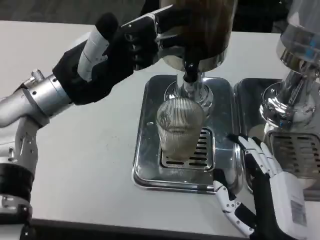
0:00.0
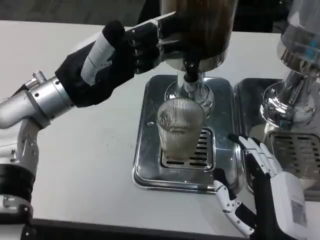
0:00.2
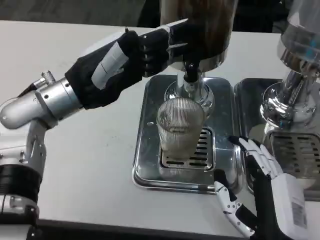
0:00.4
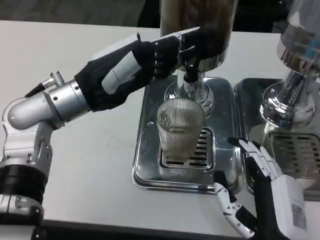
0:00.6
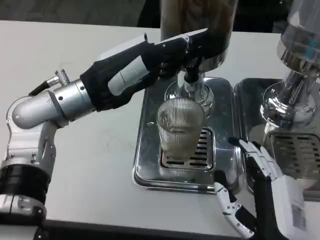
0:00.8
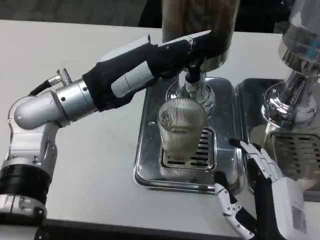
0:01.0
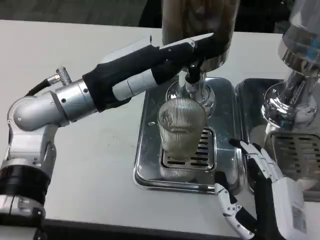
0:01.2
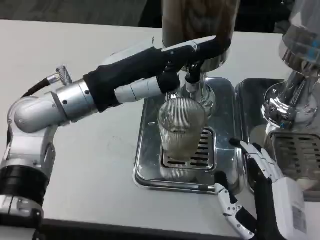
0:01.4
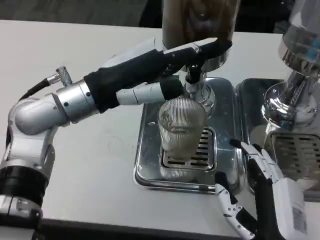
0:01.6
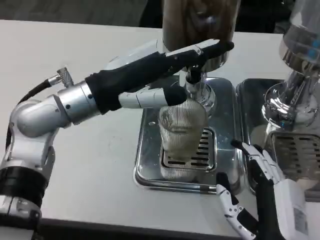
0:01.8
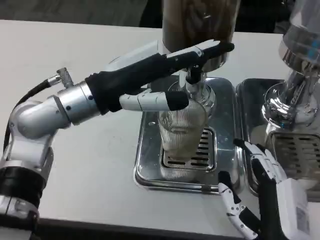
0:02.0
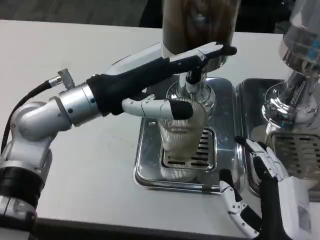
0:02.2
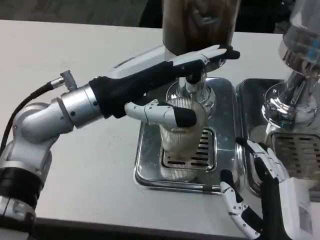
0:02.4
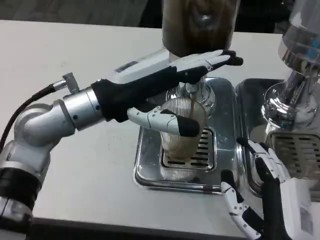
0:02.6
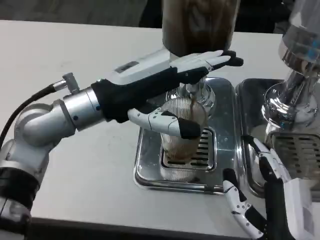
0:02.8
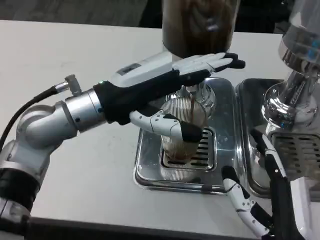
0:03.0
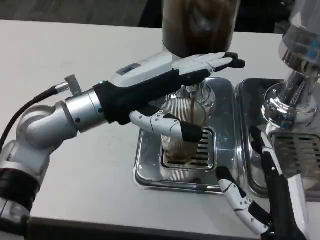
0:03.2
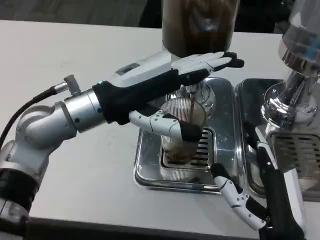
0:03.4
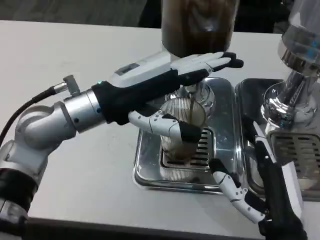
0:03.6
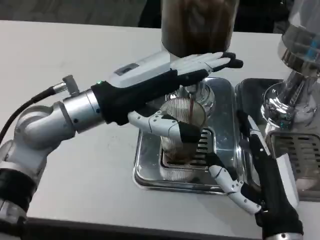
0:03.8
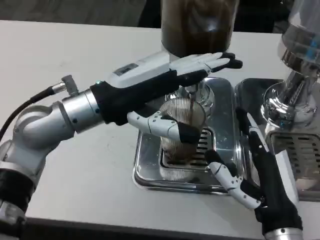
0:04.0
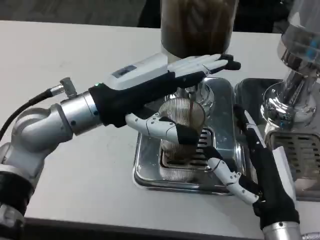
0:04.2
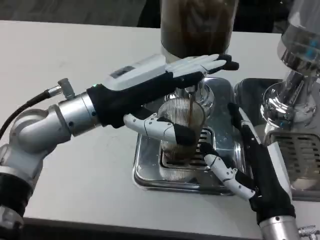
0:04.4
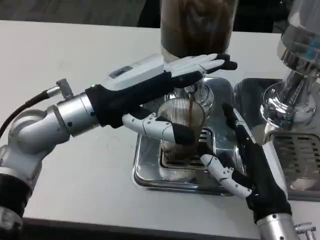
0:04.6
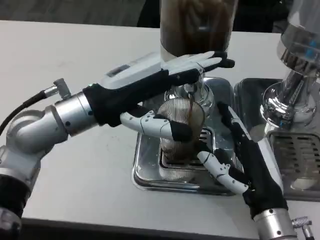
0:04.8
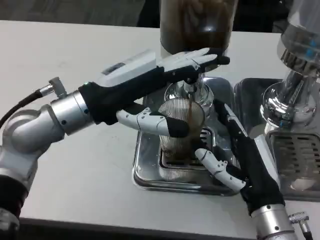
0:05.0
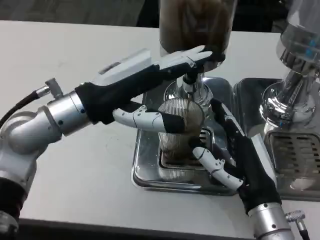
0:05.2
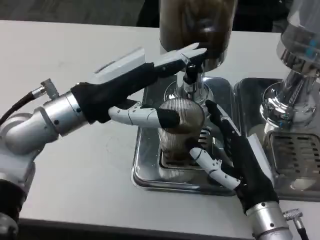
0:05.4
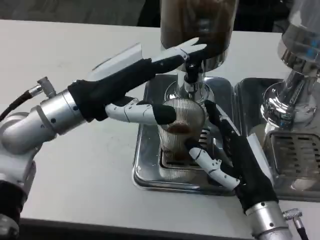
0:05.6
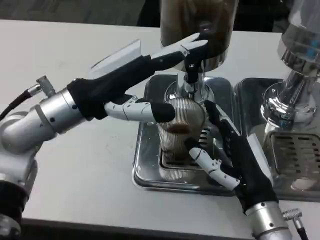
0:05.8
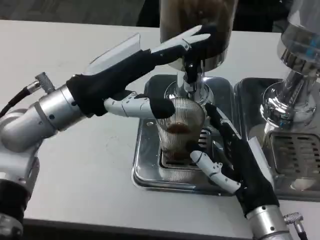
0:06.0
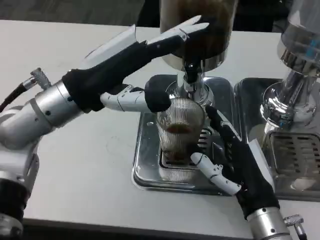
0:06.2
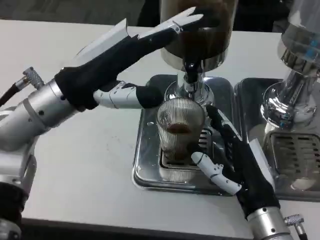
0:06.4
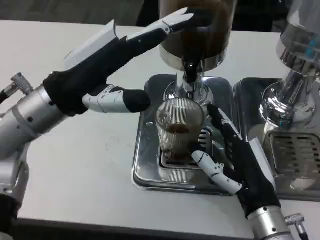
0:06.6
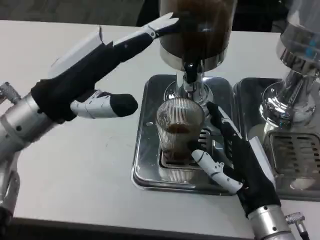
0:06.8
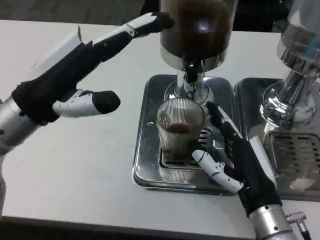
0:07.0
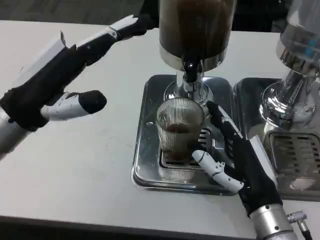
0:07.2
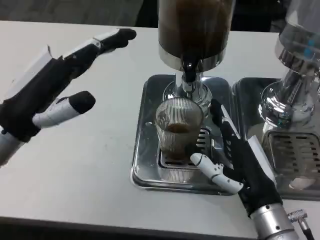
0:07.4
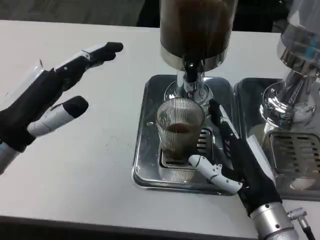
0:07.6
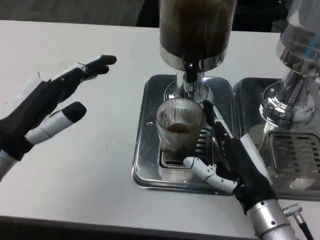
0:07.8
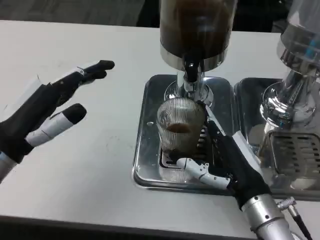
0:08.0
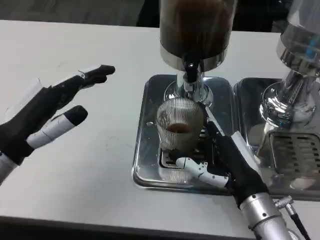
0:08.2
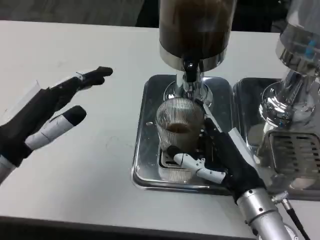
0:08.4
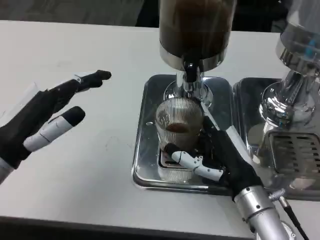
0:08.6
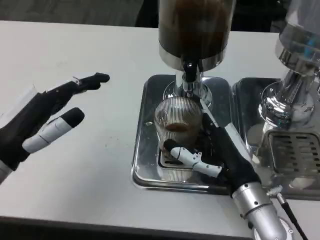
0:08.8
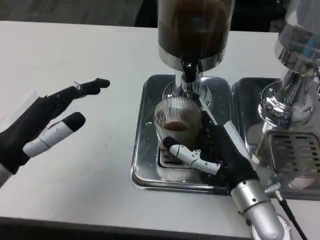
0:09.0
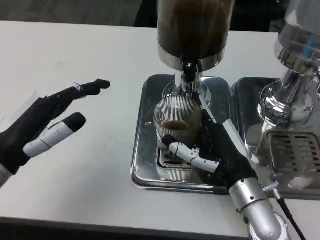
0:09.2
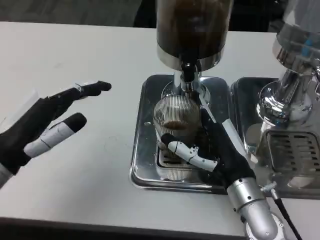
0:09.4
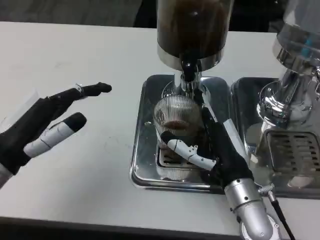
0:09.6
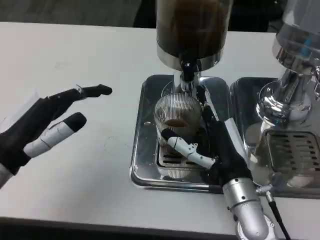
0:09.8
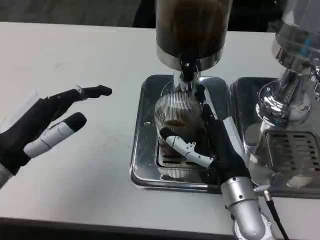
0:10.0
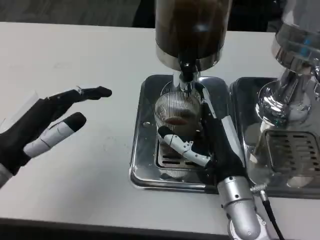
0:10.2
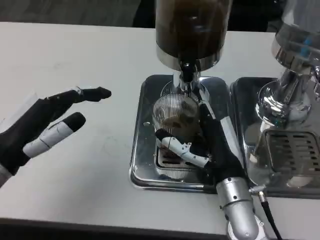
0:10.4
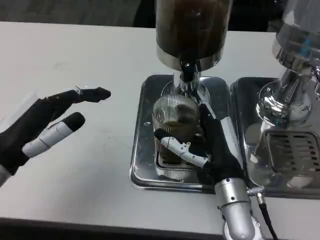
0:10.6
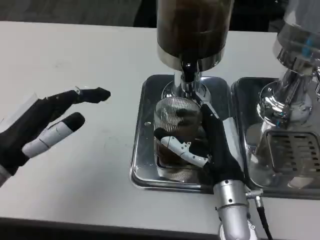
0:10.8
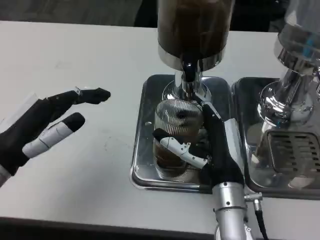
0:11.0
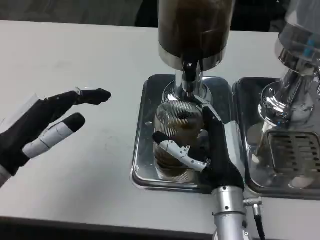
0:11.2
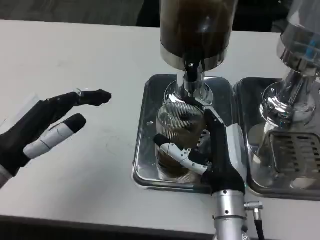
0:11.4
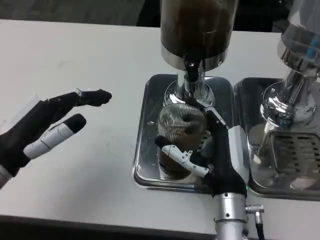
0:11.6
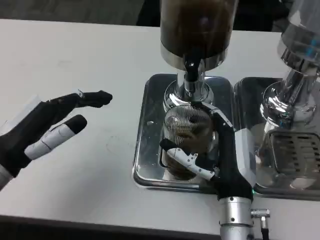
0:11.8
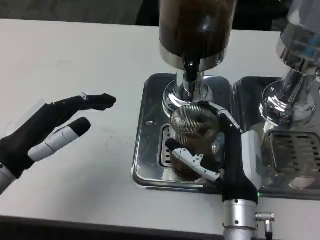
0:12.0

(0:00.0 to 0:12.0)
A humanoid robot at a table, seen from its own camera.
Task of the whole recording: Grasp the cup under the faucet to collect the drink, then remove the cup.
0:03.0 - 0:04.4: The right hand shifts roughly 5 cm forward.
0:06.0 - 0:07.6: The left hand goes roughly 10 cm to the left and backward.
0:09.0 - 0:10.4: The hands move only a little.

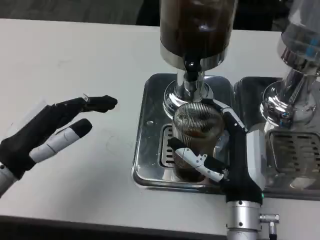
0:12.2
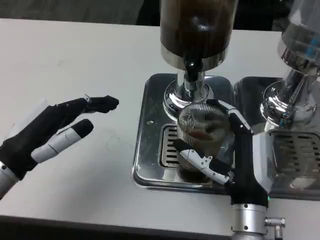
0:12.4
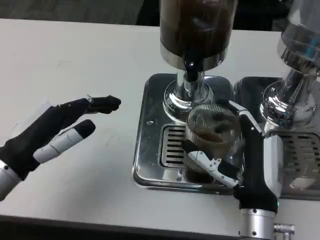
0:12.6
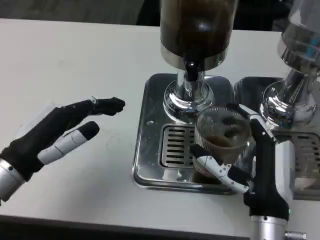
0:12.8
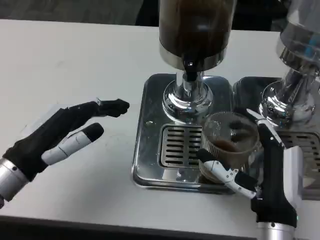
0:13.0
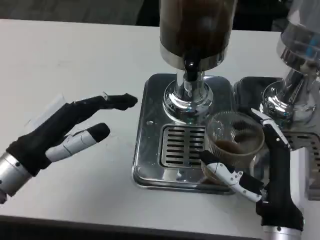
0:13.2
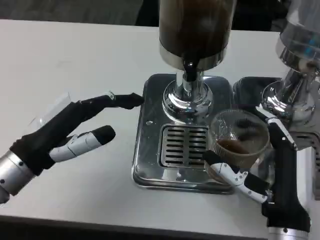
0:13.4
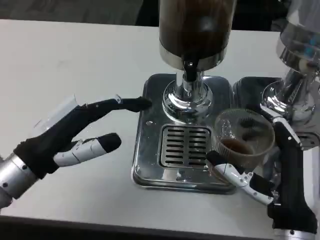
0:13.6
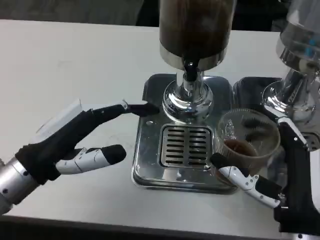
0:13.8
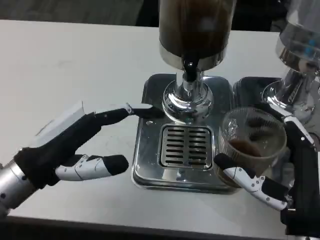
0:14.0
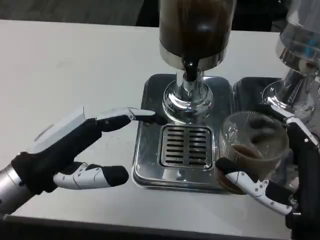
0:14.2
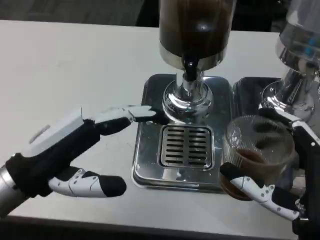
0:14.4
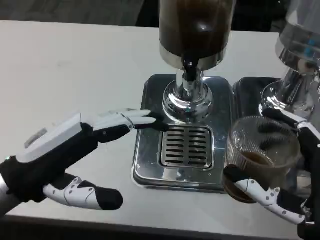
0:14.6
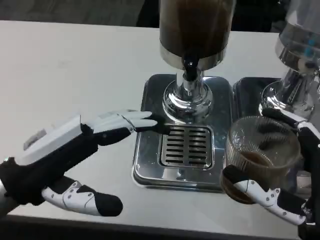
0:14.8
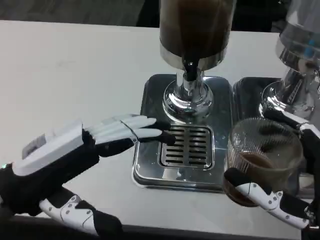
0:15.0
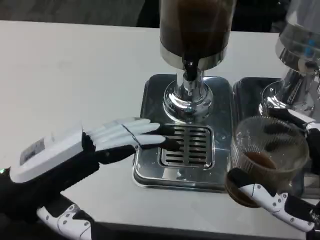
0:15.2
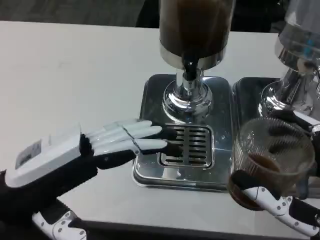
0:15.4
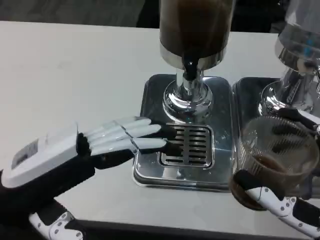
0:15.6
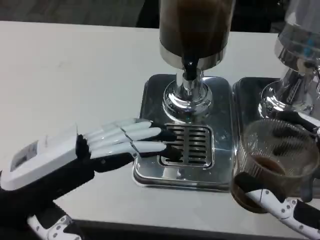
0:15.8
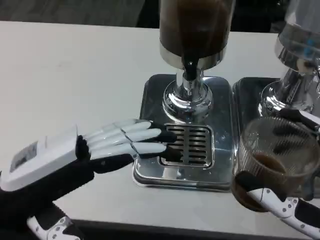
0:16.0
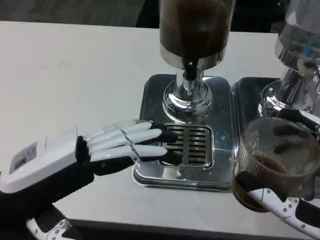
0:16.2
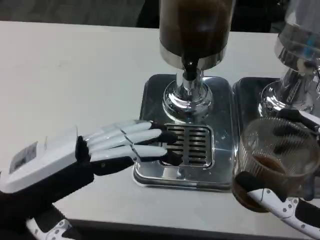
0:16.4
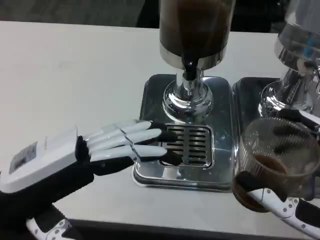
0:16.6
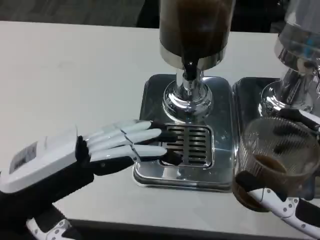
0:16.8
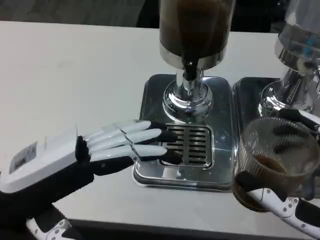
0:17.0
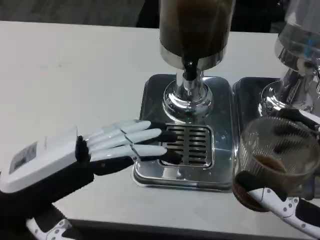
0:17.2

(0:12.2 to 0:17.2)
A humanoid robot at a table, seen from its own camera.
Task of the whole recording: Grasp the cup under the faucet to collect the drink, then remove the cup.
0:12.2 - 0:13.8: The right hand shifts about 10 cm backward and to the right.
0:13.8 - 0:15.6: The left hand ends up some 5 cm from where it was; the right hand shifts some 5 cm backward.
0:15.6 - 0:17.2: Both hands stay put.

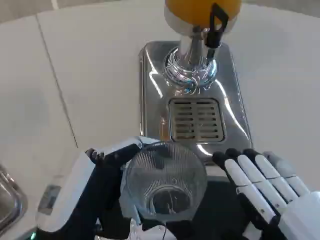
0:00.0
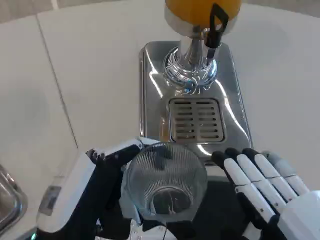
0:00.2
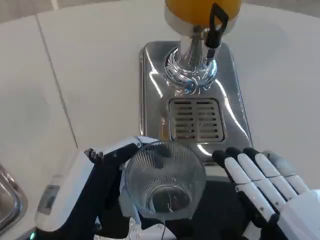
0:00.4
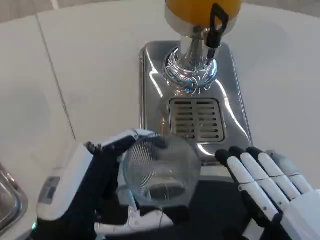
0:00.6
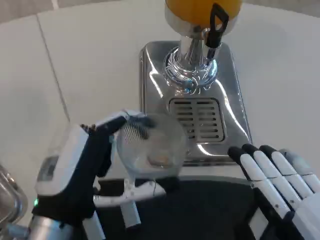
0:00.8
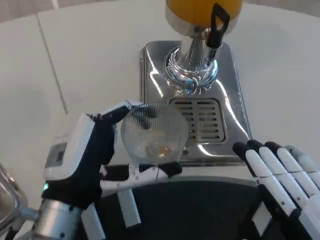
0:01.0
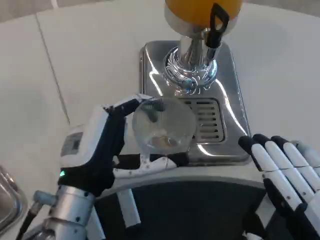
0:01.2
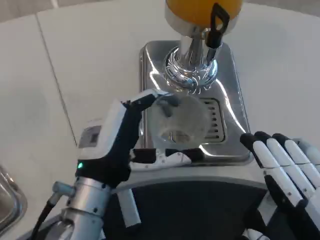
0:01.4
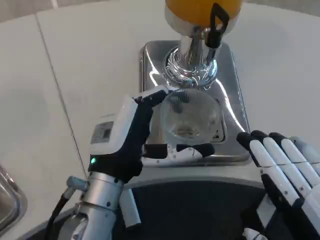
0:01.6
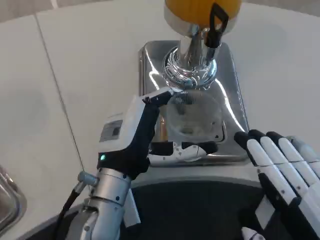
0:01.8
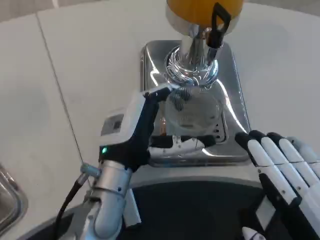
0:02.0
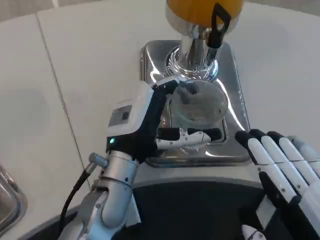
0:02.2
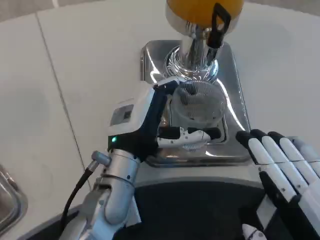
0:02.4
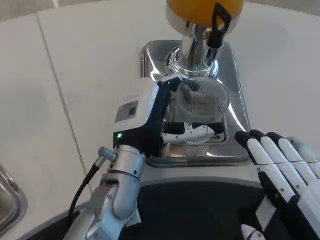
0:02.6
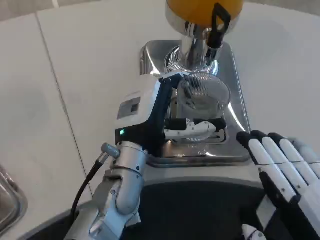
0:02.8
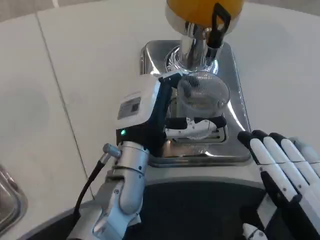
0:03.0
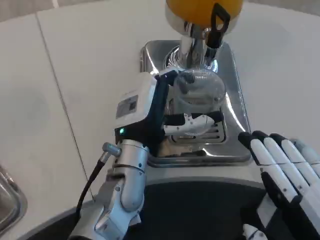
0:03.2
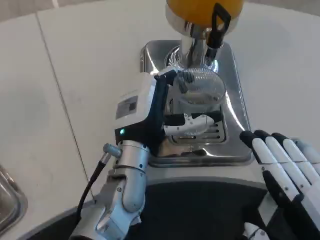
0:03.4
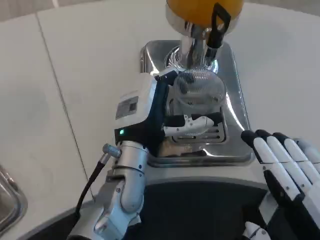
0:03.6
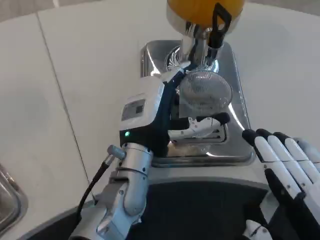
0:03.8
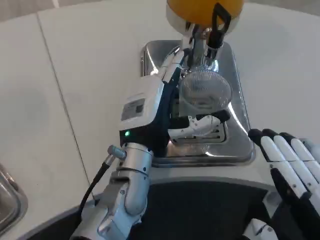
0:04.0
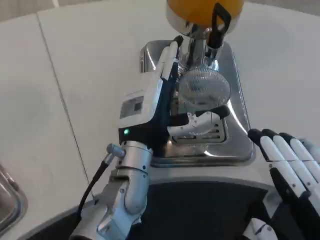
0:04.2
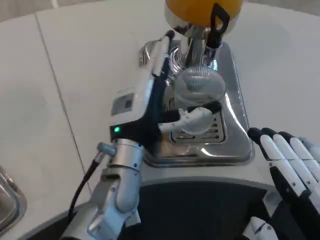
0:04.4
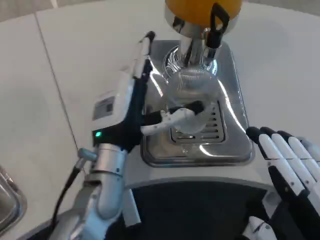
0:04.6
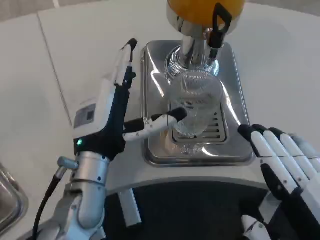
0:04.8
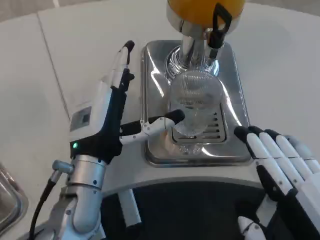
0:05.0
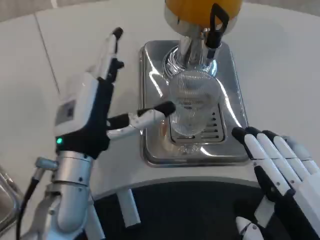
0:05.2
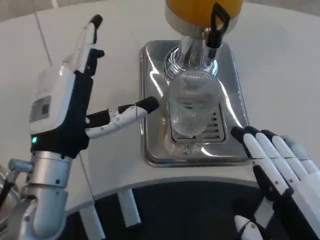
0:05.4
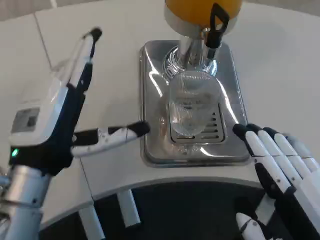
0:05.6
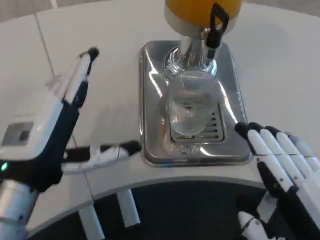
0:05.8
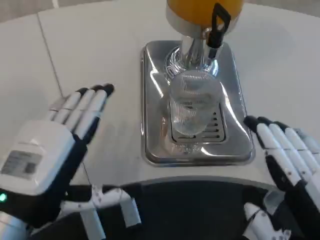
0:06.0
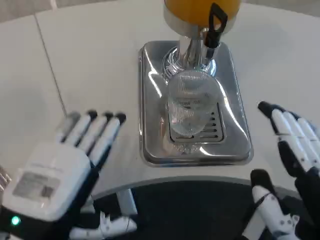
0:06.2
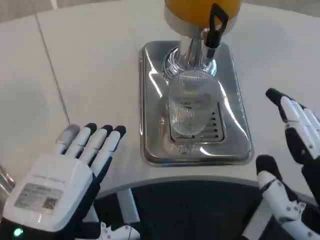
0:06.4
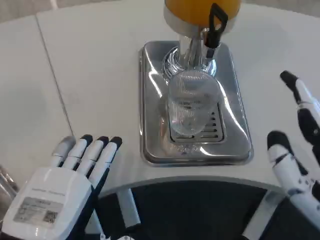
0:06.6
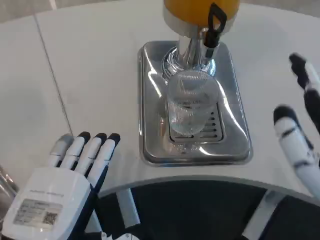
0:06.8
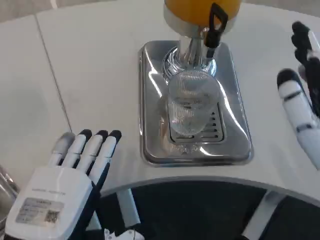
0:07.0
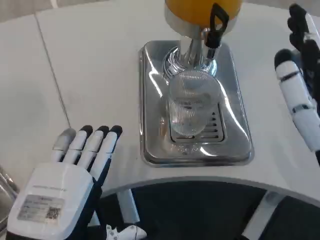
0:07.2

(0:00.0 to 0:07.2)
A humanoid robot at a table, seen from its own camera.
Task of the whole recording: Grasp the cup under the faucet to collect the drink, then remove the cup.
0:00.0 - 0:01.4: The left hand is displaced forward by approximately 10 cm.
0:01.4 - 0:02.8: The left hand travels forward by some 5 cm.
0:02.8 - 0:04.4: There are only small adjustments of the hands.
0:04.4 - 0:05.8: The left hand shifts some 15 cm to the left and backward.
0:05.8 - 0:07.2: The right hand goes some 10 cm forward, while the left hand goes roughly 5 cm backward.
